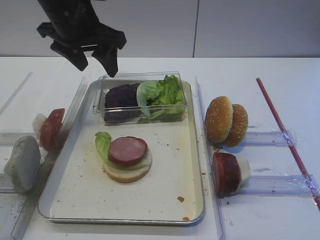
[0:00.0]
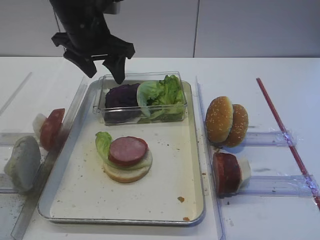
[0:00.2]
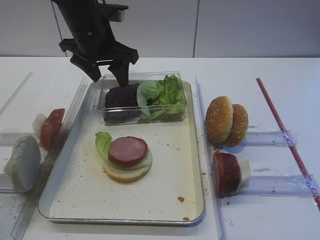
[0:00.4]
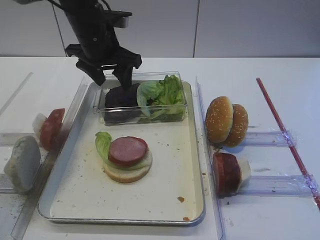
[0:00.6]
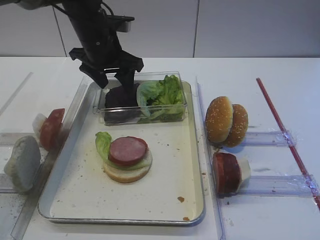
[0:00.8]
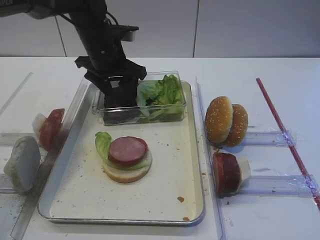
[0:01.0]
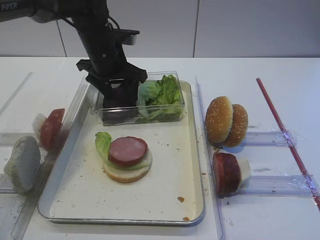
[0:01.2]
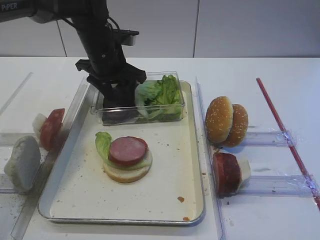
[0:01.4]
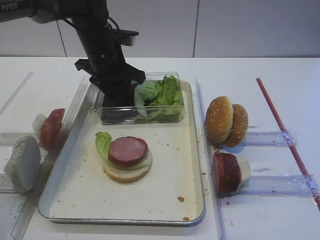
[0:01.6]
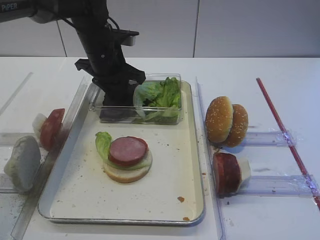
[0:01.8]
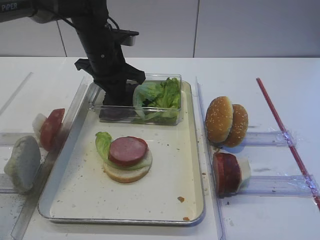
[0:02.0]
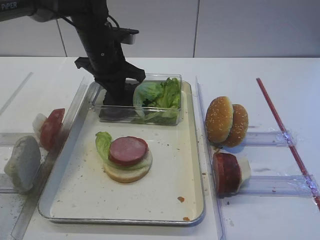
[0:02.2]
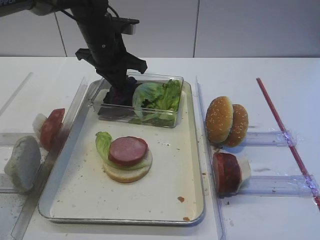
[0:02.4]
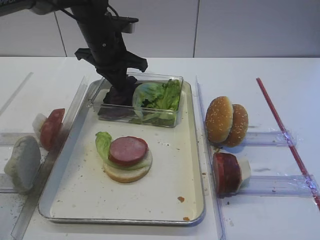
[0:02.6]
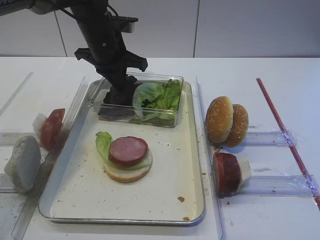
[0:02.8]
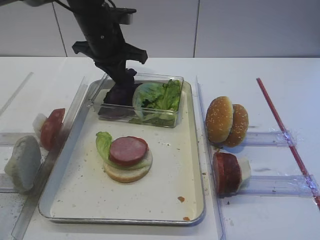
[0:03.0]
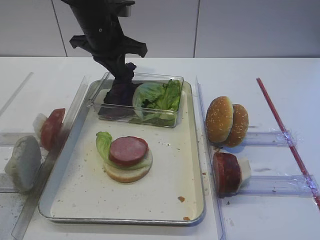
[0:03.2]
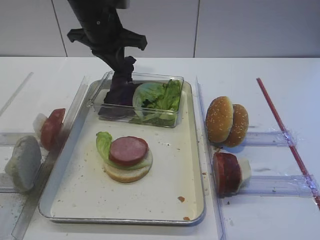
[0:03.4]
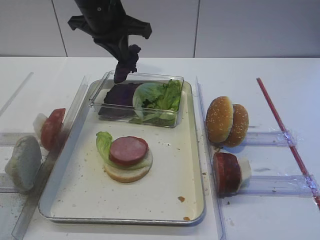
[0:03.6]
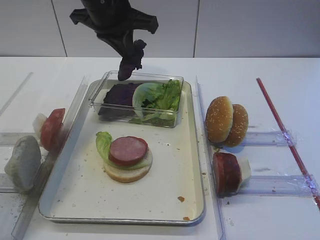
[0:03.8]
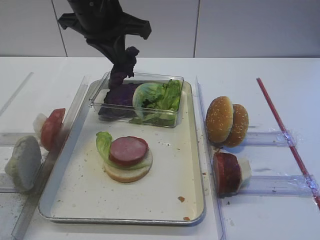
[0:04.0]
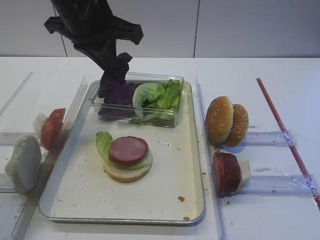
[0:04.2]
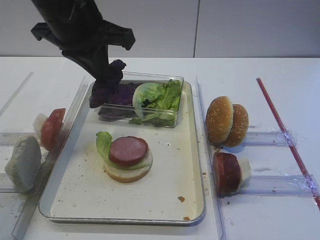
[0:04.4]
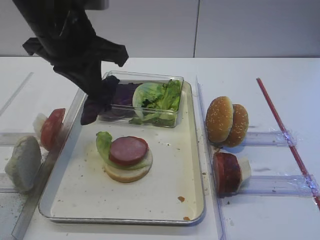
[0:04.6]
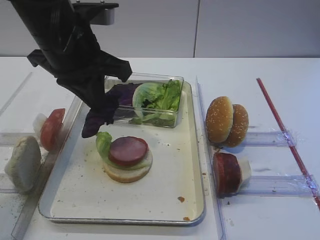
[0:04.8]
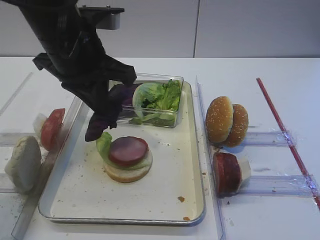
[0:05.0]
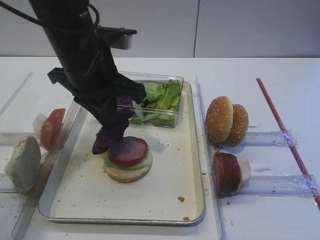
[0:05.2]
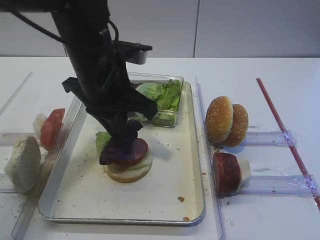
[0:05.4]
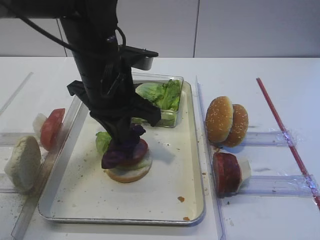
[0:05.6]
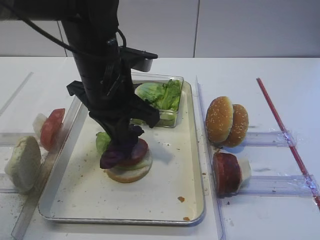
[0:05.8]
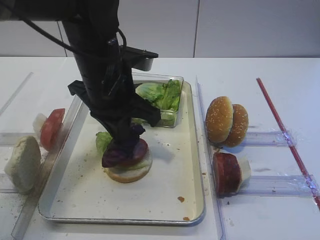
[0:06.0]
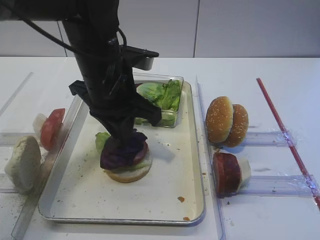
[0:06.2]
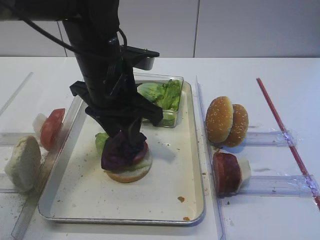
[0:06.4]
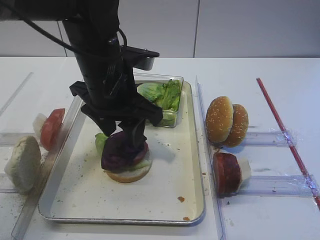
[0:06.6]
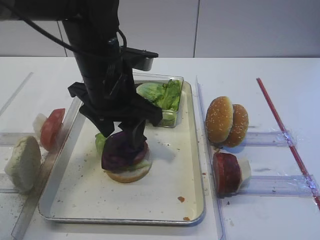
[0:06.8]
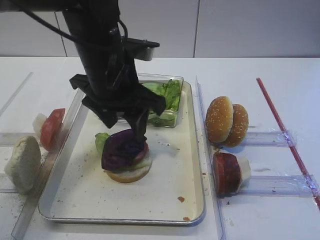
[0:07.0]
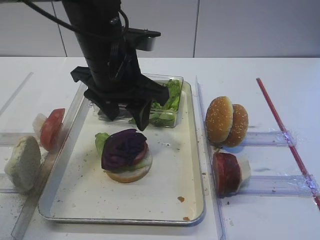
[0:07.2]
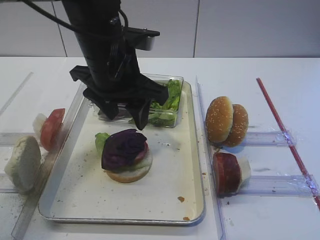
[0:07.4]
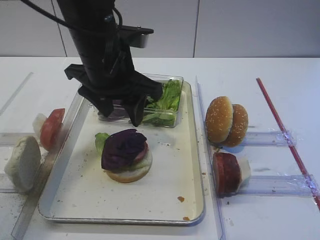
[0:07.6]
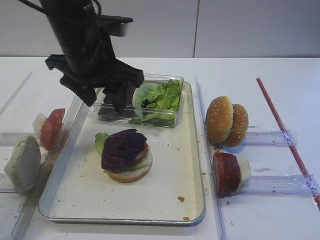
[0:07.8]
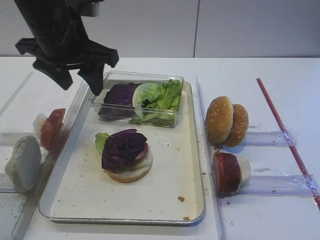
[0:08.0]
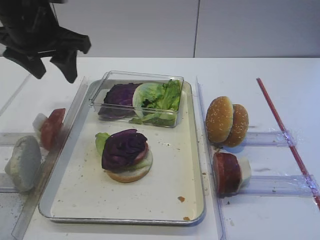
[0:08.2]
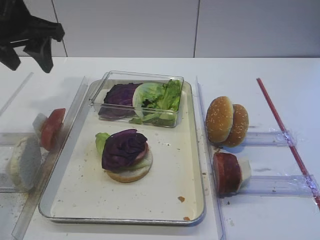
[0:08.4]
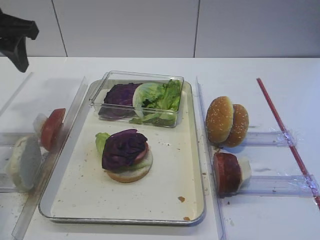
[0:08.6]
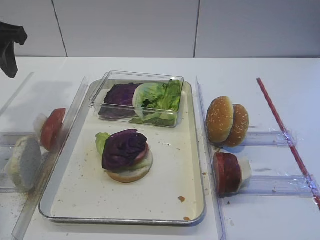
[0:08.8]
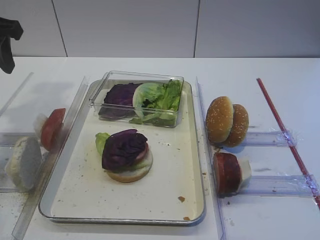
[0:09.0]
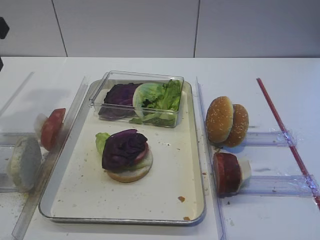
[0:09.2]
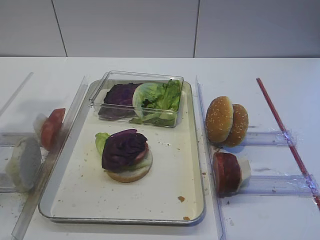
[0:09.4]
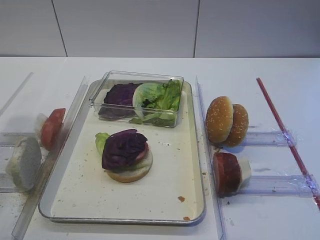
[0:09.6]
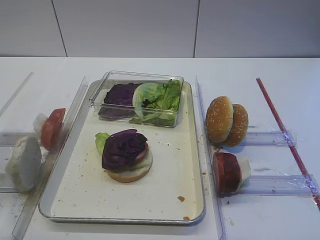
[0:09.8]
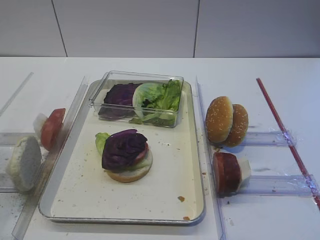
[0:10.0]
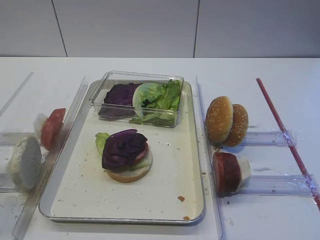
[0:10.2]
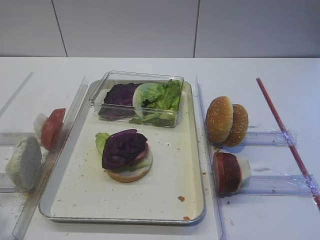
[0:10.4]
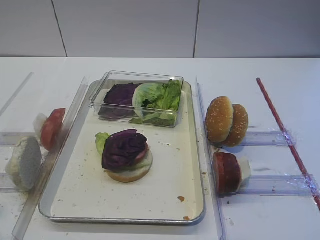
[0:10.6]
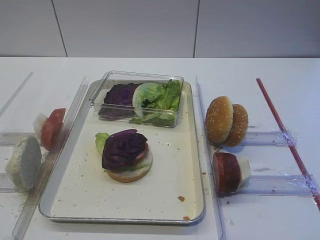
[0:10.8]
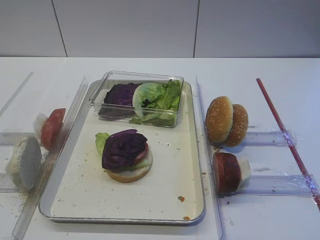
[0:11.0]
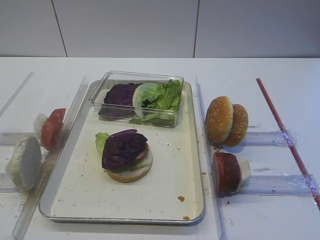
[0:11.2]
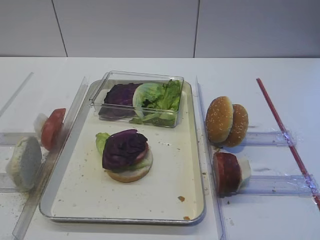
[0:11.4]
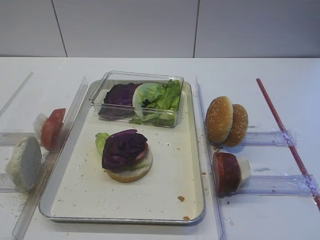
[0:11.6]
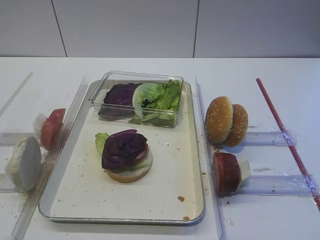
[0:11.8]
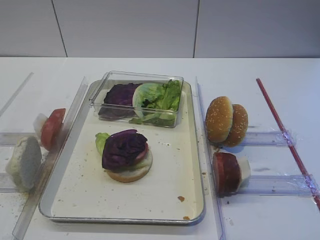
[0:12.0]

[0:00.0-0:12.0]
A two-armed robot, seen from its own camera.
Step, 0:00.0 to 0:03.8: Pick up the purple cabbage with the left gripper.
Step, 0:04.0 to 0:08.0: Place the purple cabbage on the cutlet with the left gripper.
0:00.0 to 0:01.6: The left gripper shifts about 10 cm downward and forward, and closes up.
0:01.6 to 0:03.0: The left gripper closes up.
0:03.0 to 0:04.4: The left gripper is displaced backward and upward by approximately 15 cm.
0:04.4 to 0:06.0: The left gripper travels downward by about 10 cm.
0:06.0 to 0:07.6: The left gripper opens its fingers.
0:07.6 to 0:09.0: The left gripper is displaced to the left by some 20 cm.
0:09.0 to 0:10.4: The left gripper is displaced backward by approximately 25 cm.

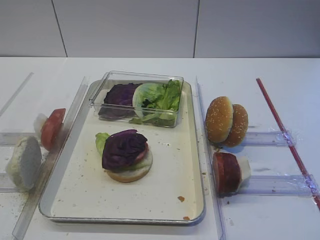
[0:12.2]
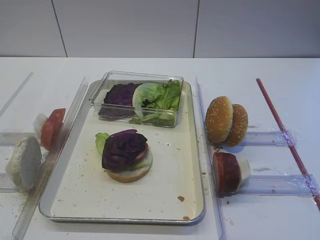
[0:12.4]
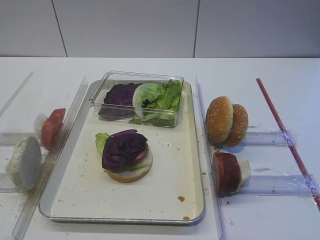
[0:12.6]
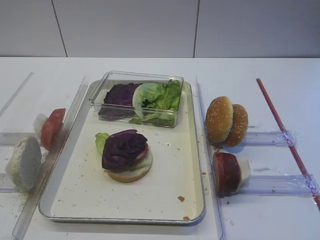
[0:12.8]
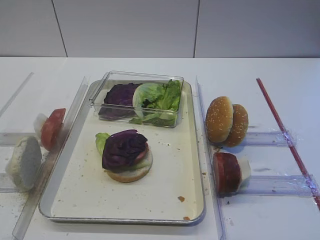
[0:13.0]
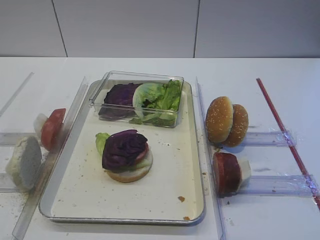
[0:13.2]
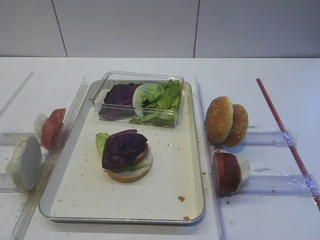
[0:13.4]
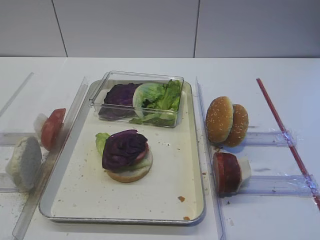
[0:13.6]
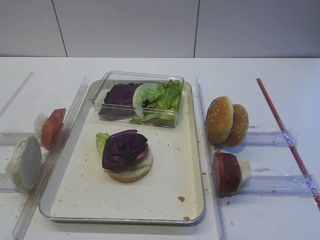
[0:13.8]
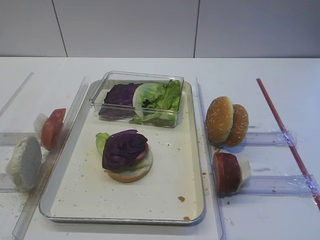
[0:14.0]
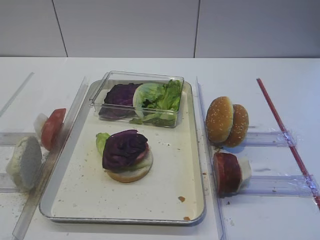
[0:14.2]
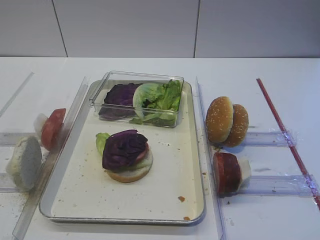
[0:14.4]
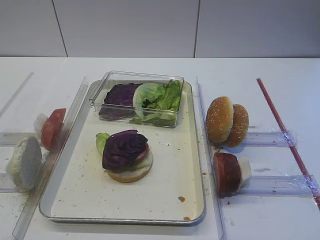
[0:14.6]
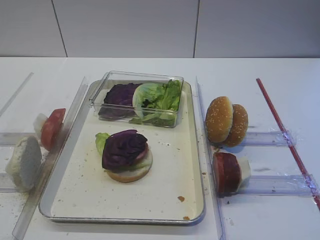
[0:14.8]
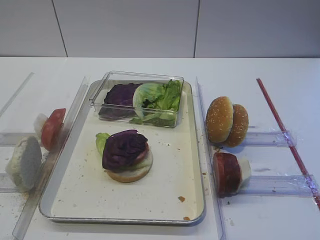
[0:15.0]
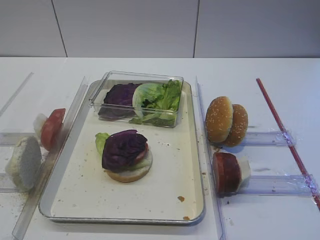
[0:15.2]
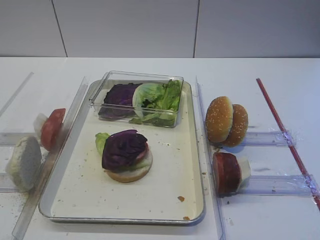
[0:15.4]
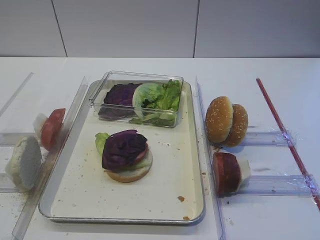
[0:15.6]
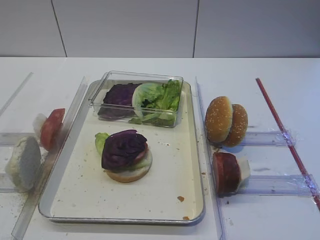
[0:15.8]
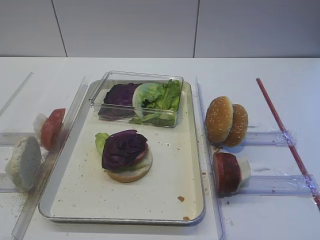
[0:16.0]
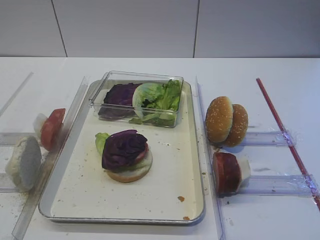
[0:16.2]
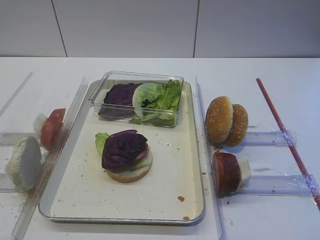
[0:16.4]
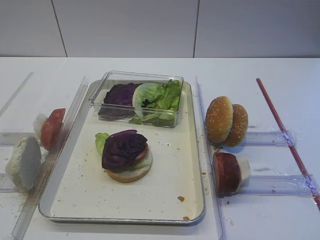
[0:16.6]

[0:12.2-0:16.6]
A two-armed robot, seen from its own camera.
0:12.2 to 0:16.6: Both grippers stay about where they are.
